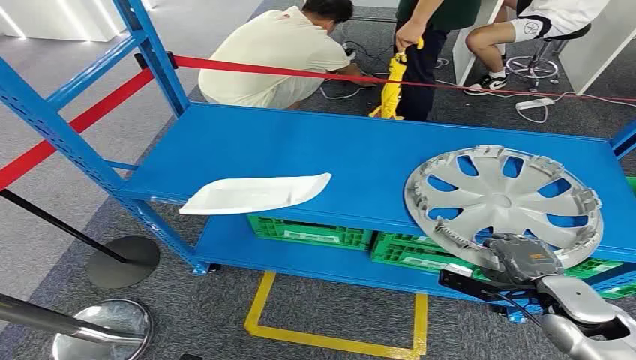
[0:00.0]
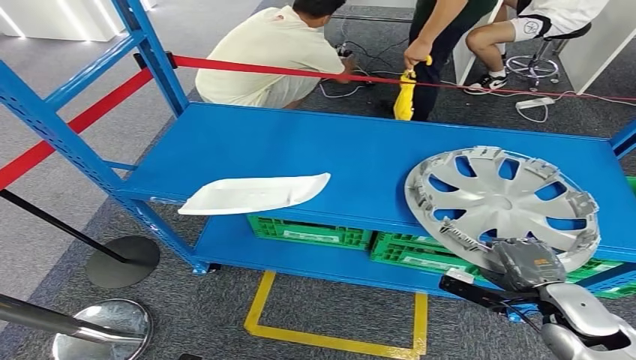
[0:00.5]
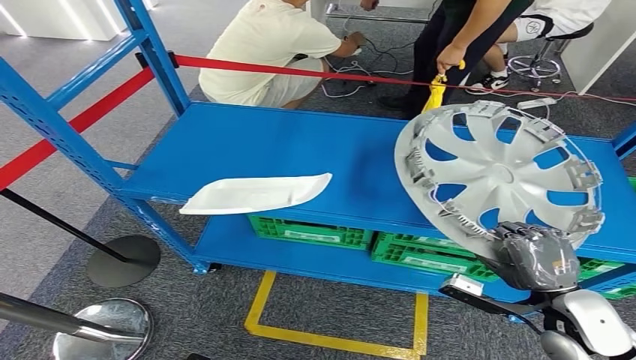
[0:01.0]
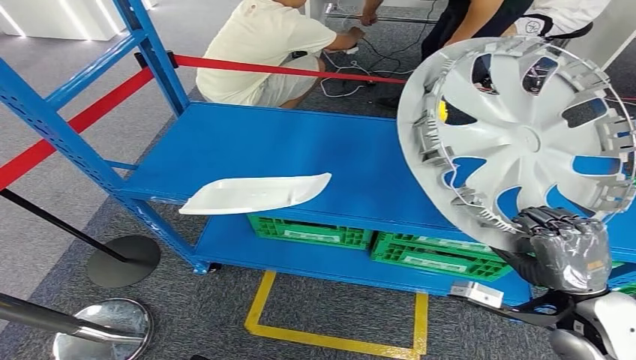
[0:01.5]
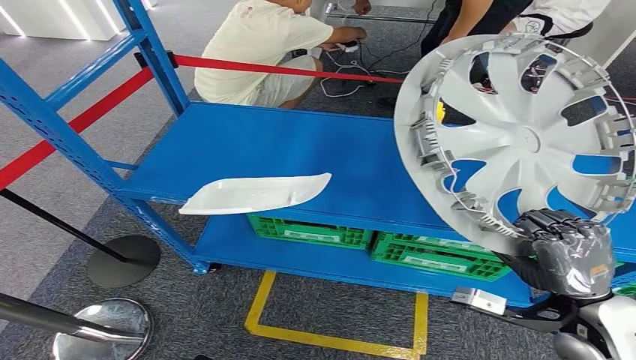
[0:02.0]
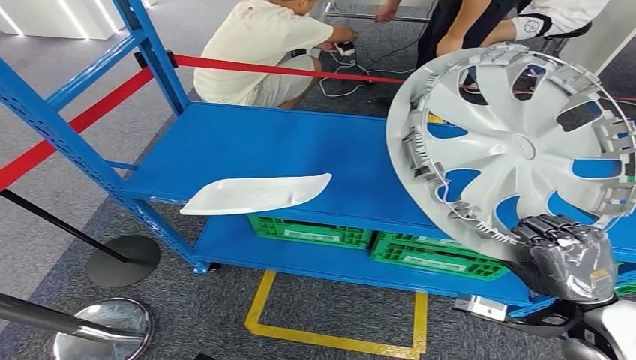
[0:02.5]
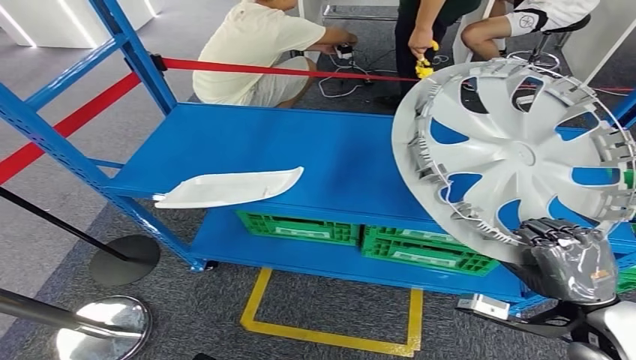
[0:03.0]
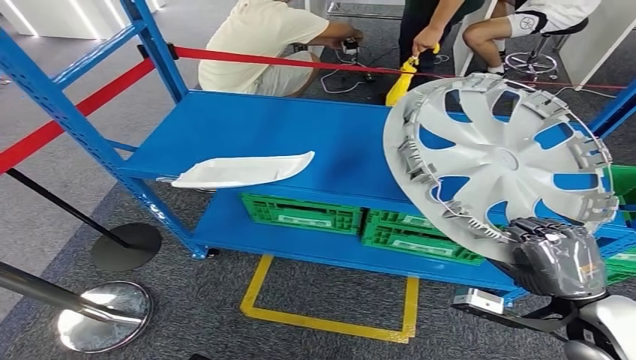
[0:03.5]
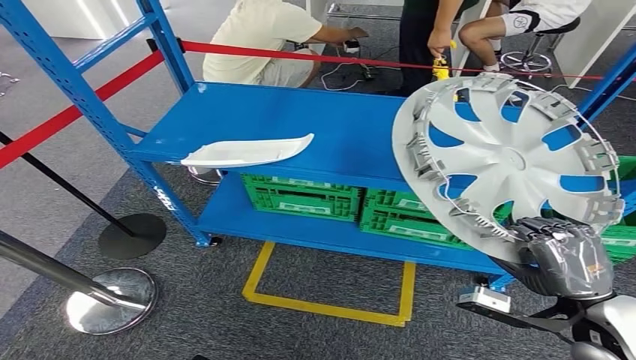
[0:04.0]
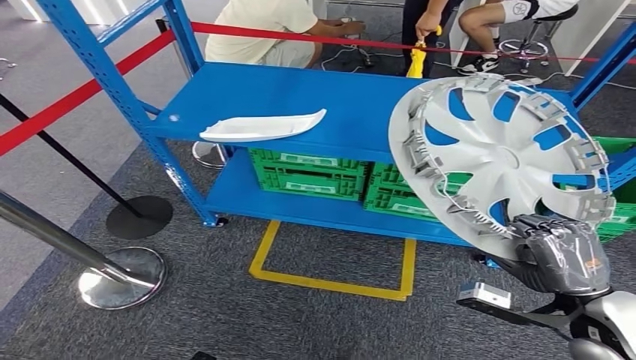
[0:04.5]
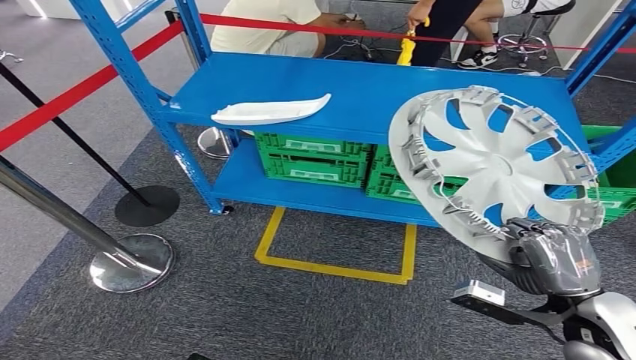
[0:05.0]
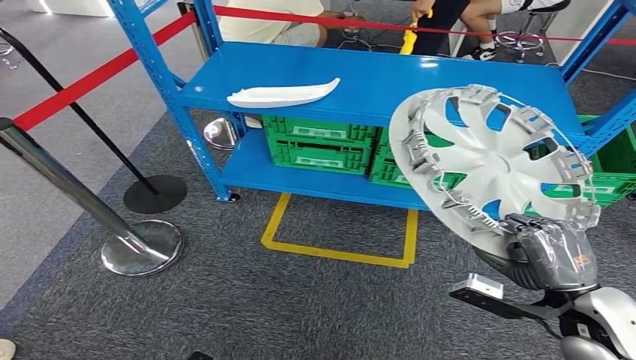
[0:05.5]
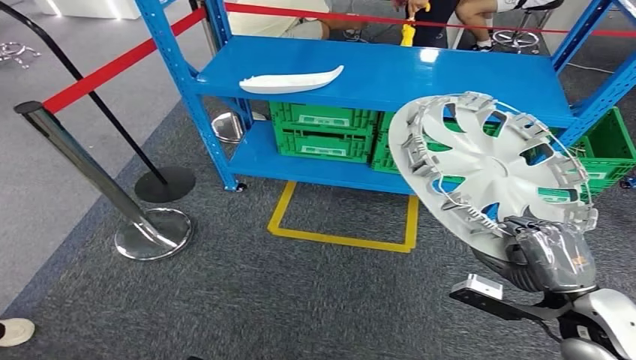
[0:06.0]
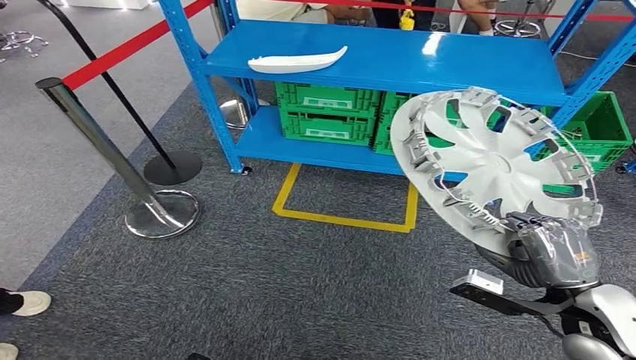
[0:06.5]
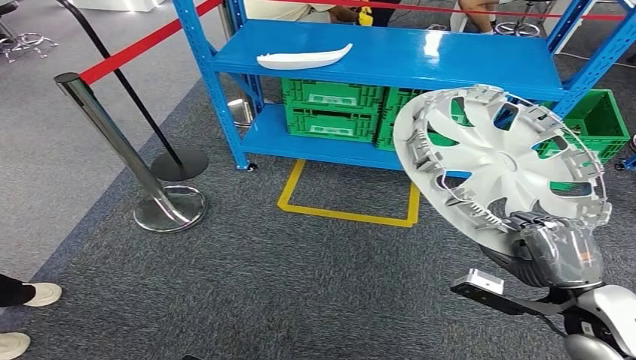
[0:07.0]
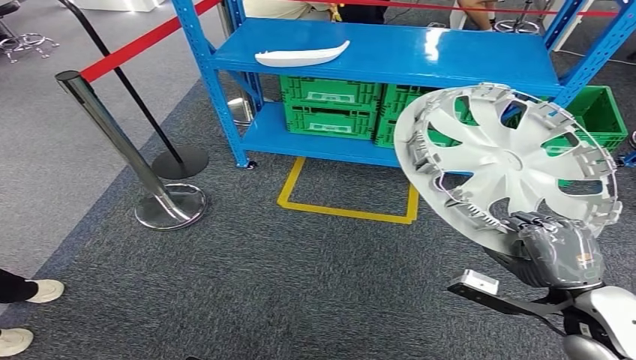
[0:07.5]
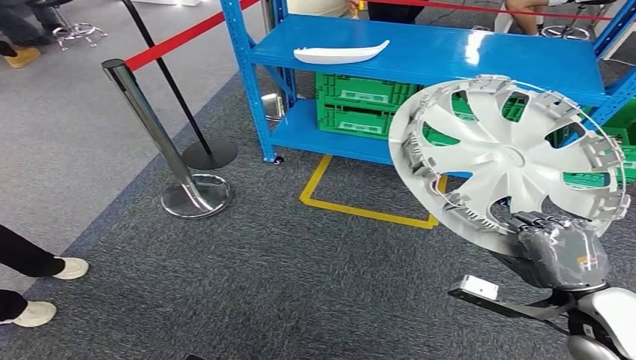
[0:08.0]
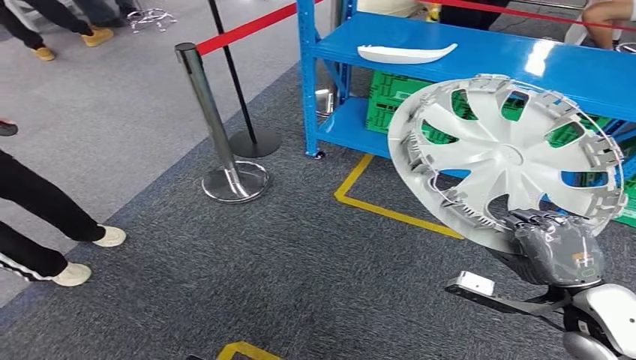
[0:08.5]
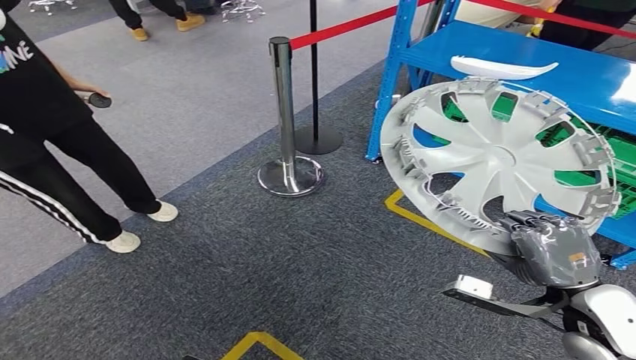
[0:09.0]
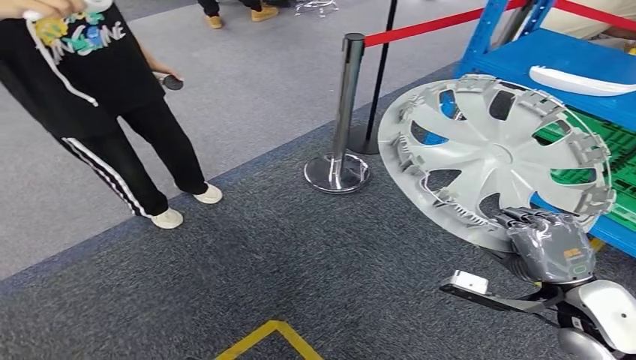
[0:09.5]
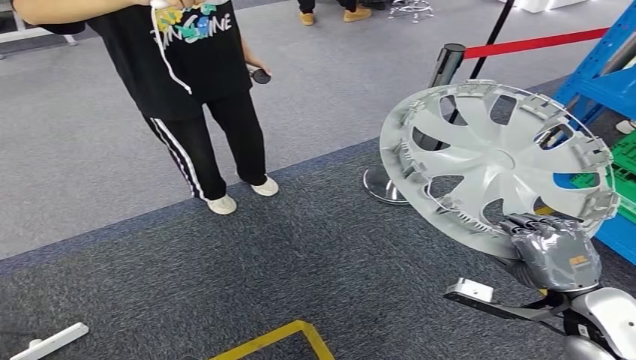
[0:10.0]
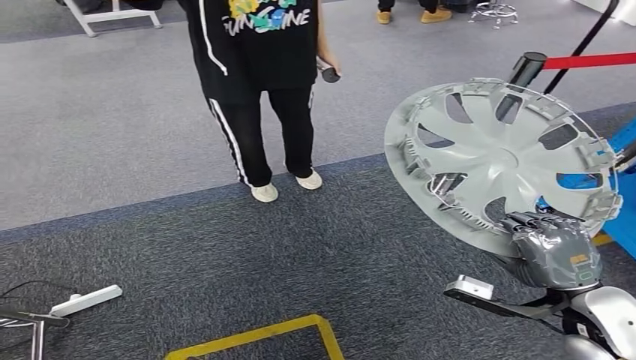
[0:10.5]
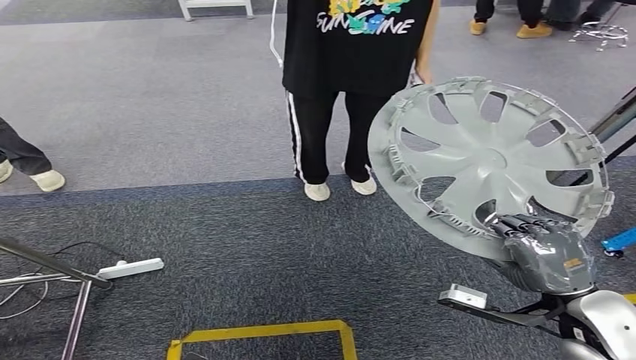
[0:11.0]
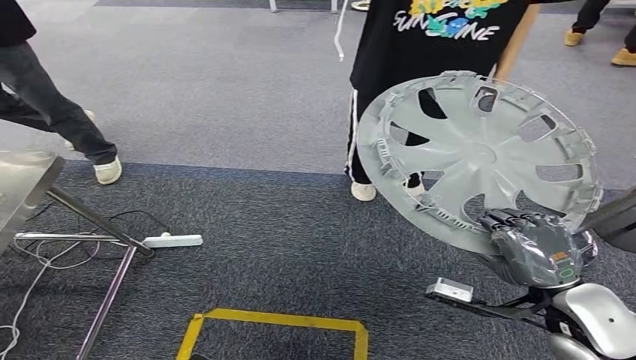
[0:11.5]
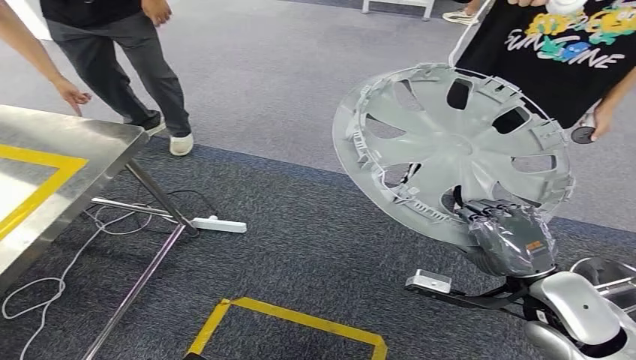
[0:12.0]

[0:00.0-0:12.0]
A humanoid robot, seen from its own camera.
Step, 0:00.0 to 0:03.0: Pick up the small component from the shelf.

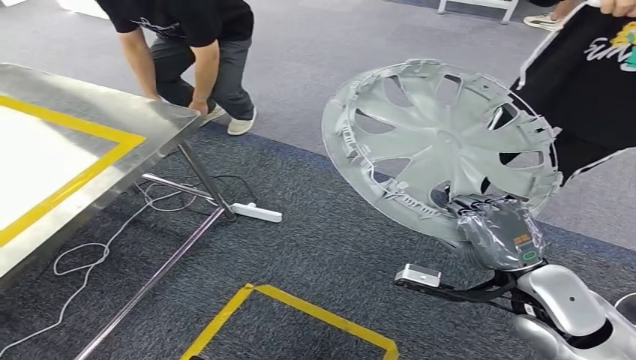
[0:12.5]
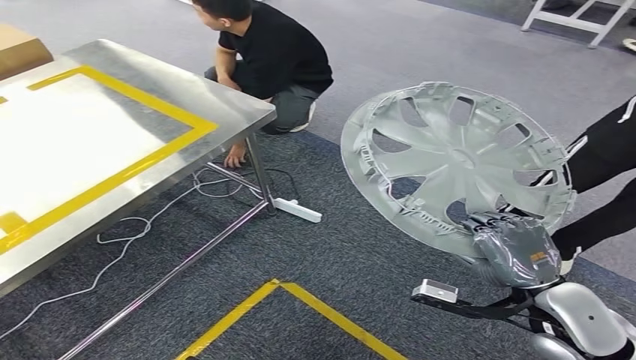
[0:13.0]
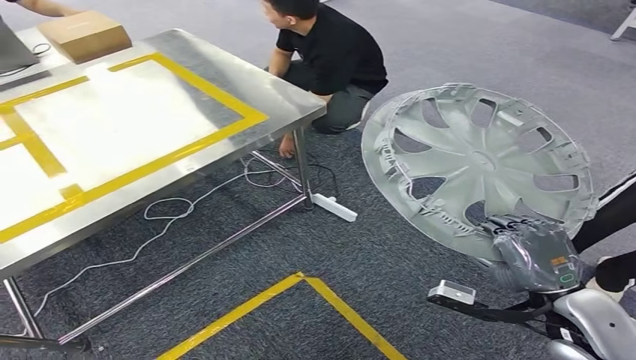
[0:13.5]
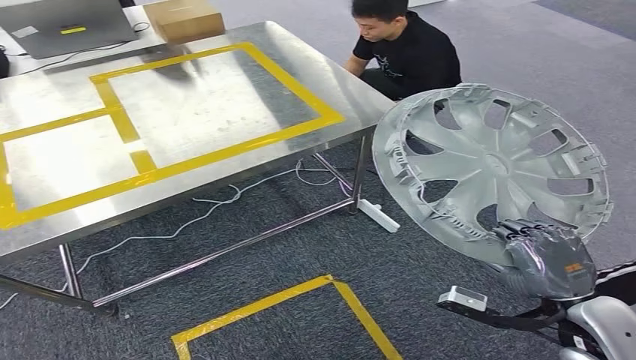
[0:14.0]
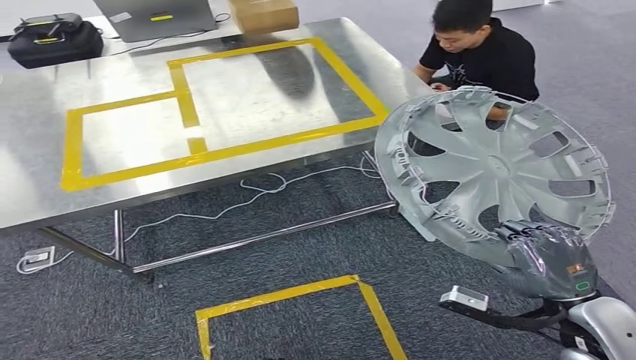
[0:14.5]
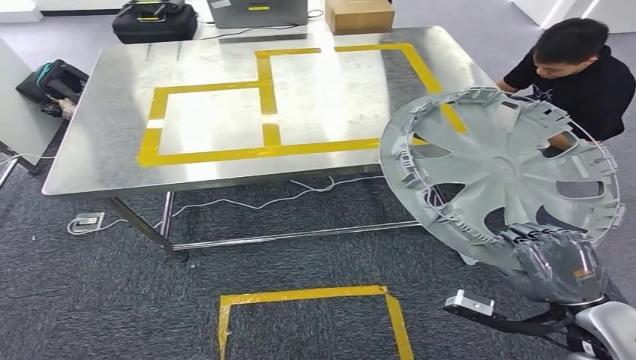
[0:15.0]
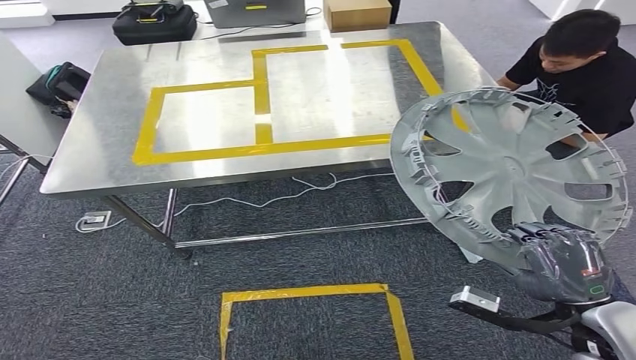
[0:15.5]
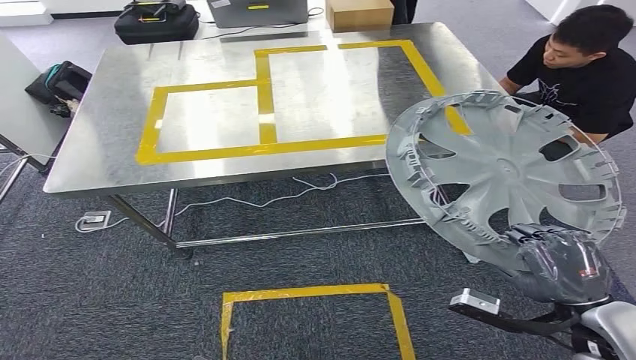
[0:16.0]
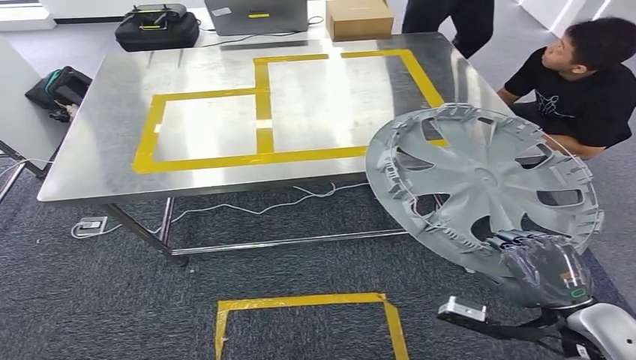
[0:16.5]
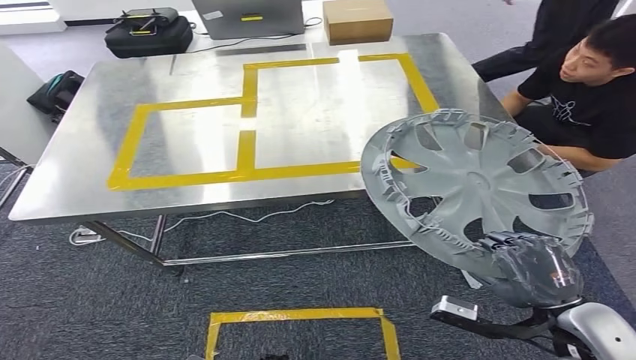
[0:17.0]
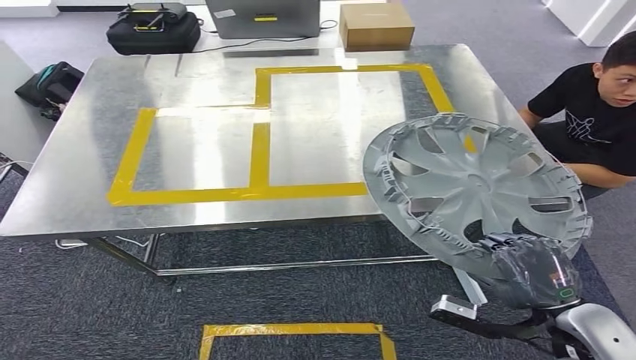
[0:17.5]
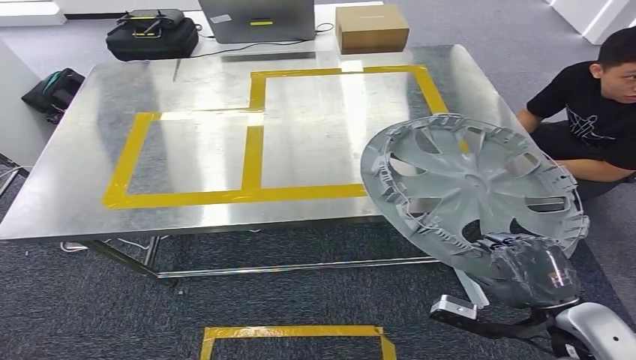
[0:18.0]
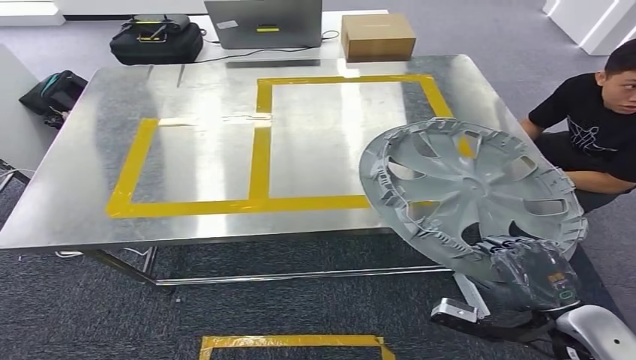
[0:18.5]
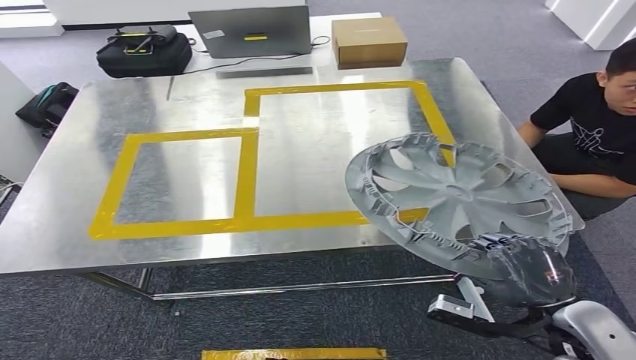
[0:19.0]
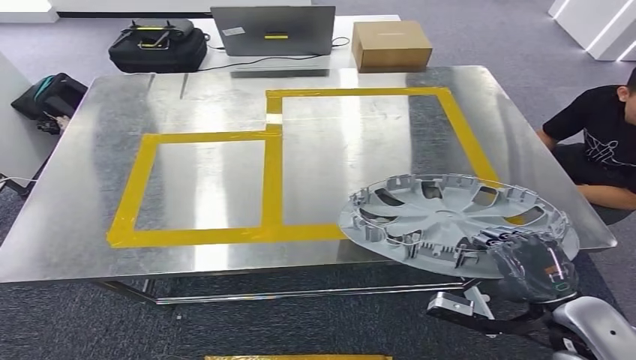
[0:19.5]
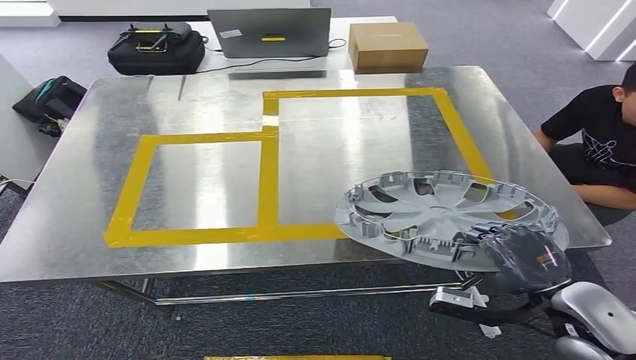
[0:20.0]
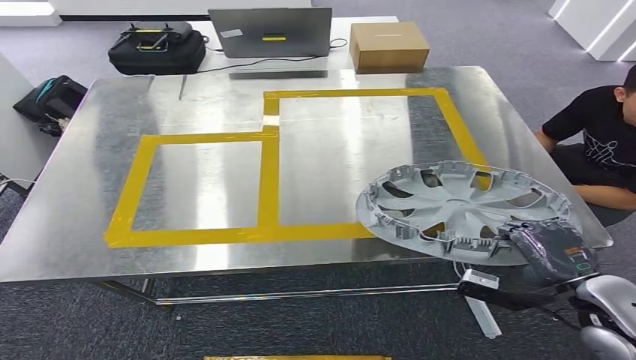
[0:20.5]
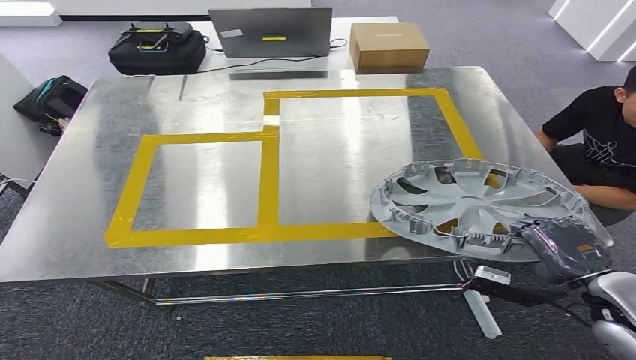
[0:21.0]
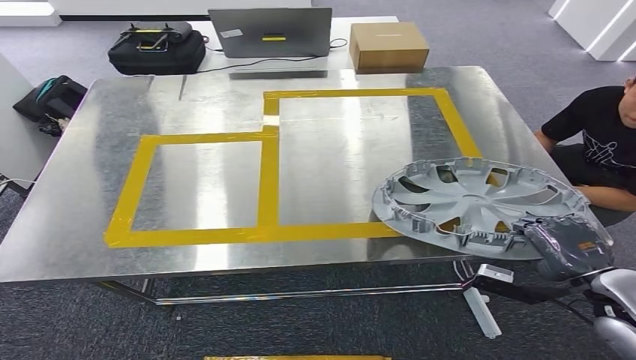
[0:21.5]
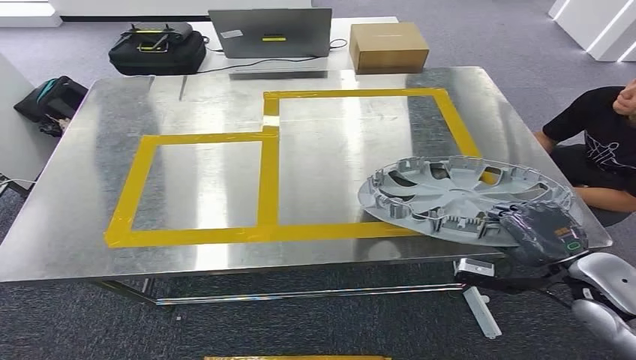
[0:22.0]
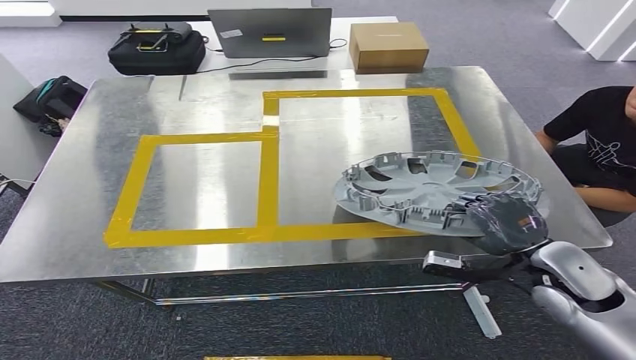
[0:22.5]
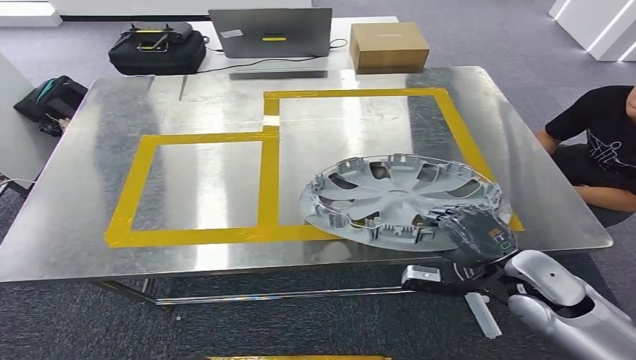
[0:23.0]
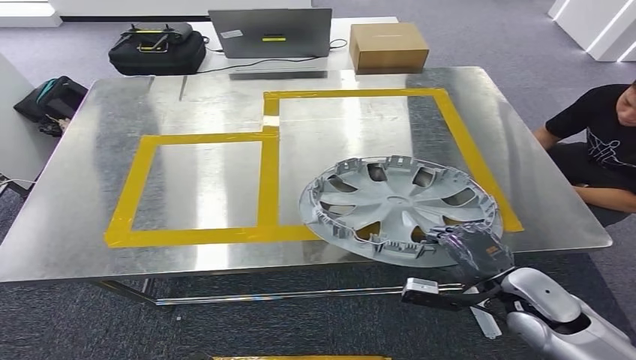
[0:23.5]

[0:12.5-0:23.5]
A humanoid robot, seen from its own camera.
Step, 0:12.5 to 0:19.5: Bring the small component to the front of the workbench.
0:20.0 to 0:21.5: The right hand is displaced to the right by some 5 cm.
0:21.5 to 0:23.5: The right hand heads to the left, covering about 10 cm.
